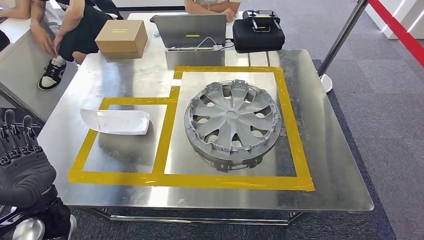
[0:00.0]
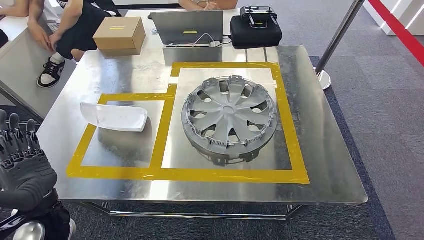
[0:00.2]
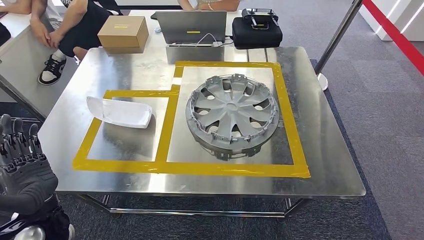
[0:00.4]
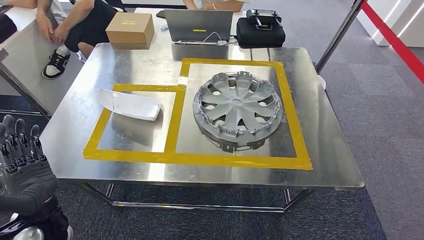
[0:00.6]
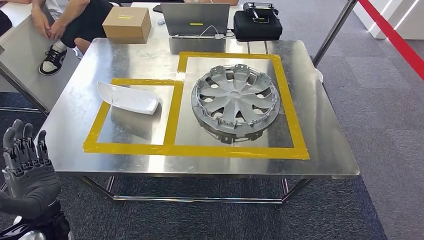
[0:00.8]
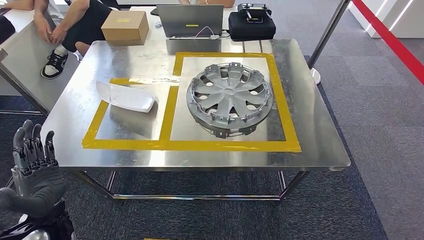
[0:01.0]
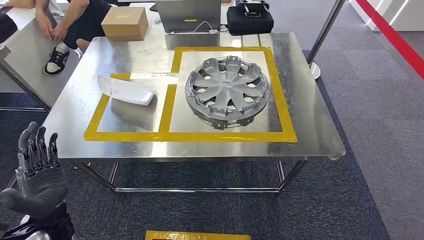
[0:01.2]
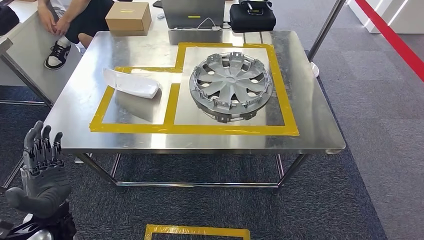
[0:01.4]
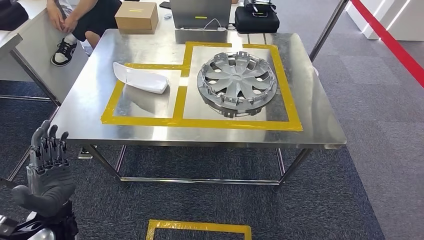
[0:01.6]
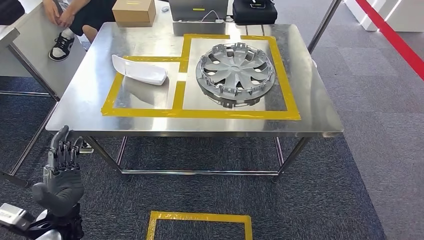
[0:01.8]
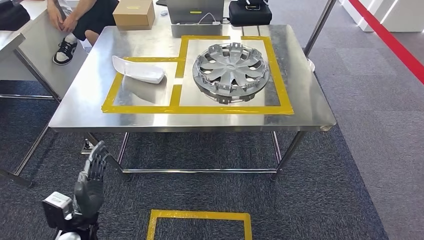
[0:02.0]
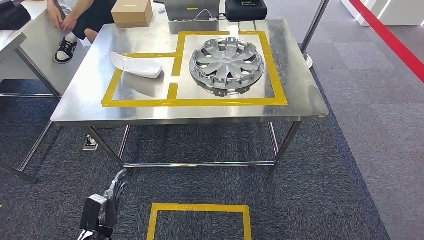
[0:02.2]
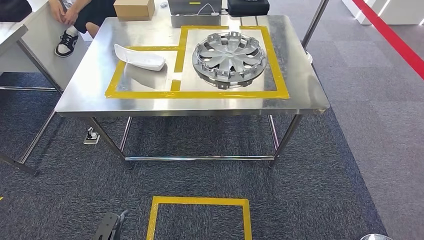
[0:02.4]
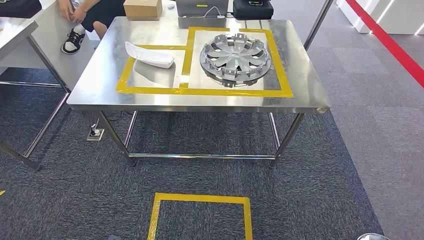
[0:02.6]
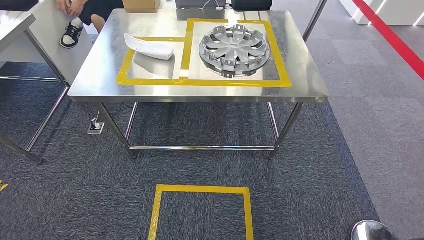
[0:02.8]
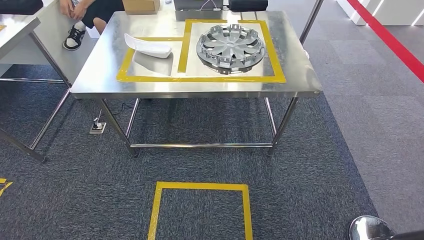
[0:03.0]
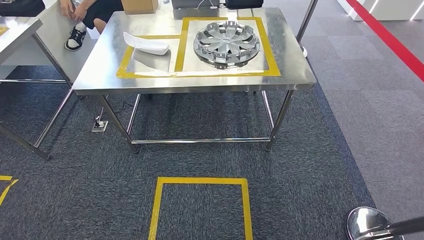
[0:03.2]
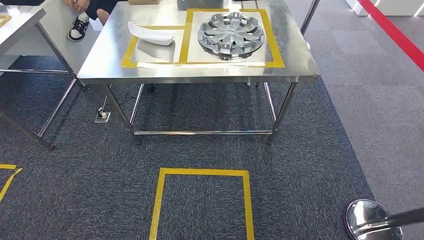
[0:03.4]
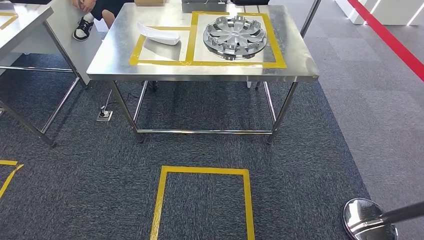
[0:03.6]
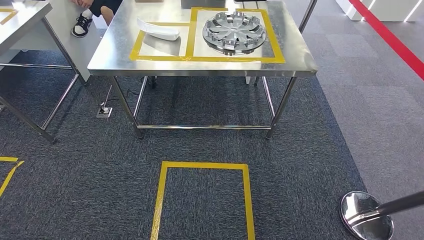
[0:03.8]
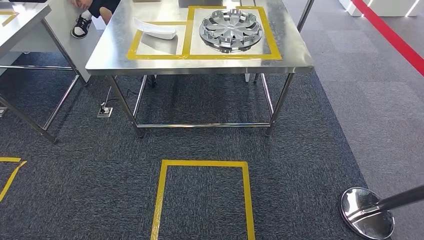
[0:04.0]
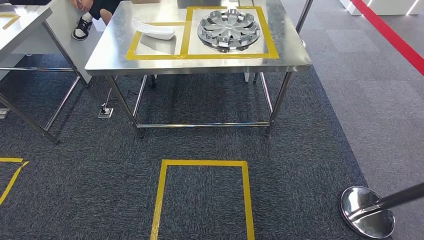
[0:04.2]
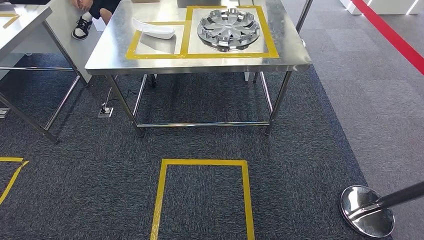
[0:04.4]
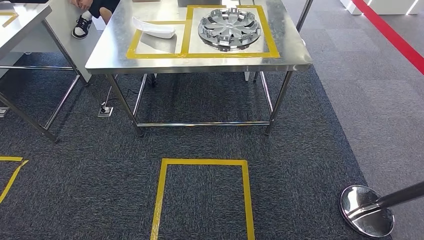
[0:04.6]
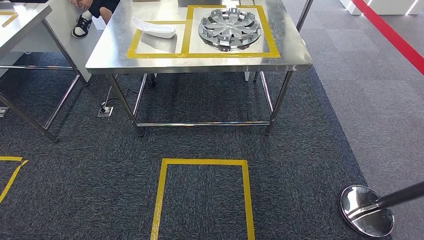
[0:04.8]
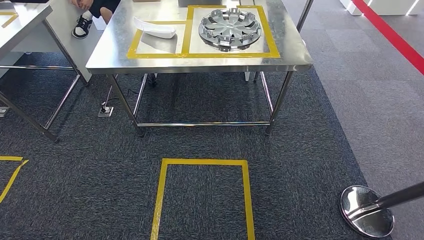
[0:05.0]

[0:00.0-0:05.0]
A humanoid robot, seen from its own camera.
Step, 0:02.2 to 0:05.0: Return to the initial position at the workbench.
